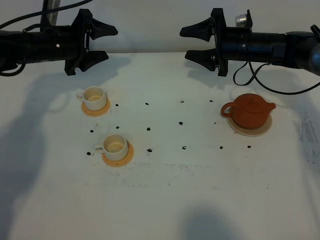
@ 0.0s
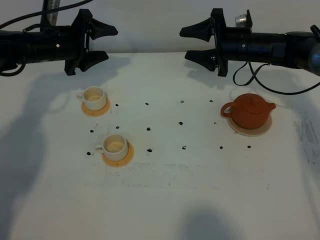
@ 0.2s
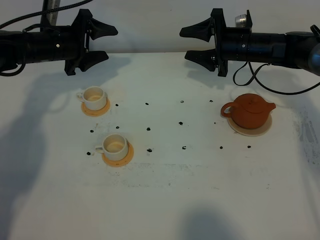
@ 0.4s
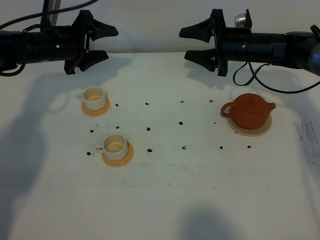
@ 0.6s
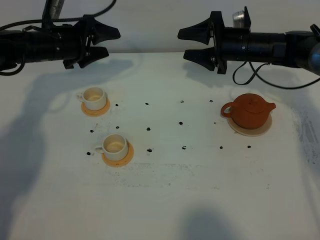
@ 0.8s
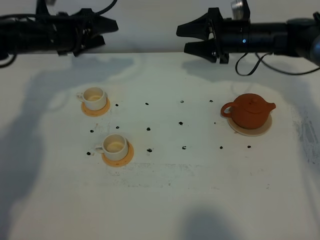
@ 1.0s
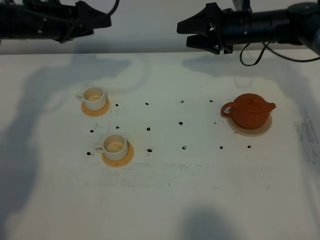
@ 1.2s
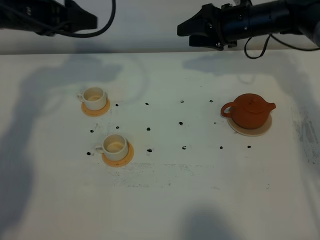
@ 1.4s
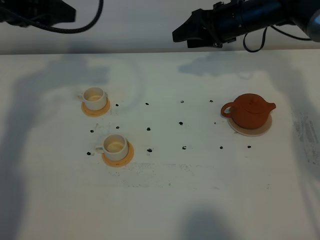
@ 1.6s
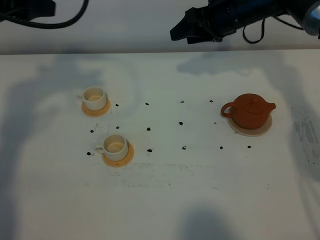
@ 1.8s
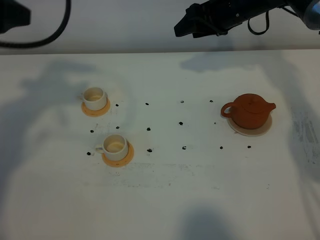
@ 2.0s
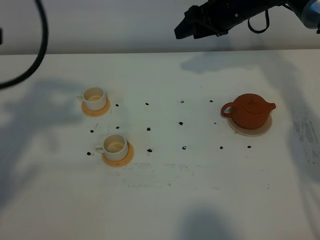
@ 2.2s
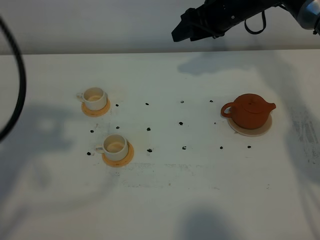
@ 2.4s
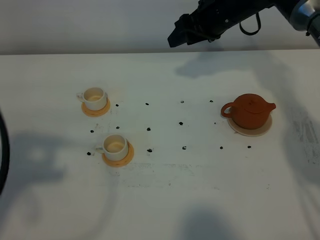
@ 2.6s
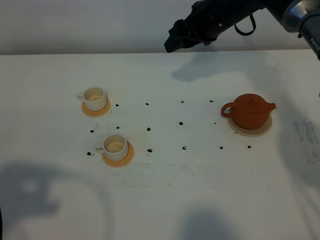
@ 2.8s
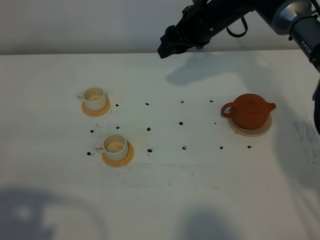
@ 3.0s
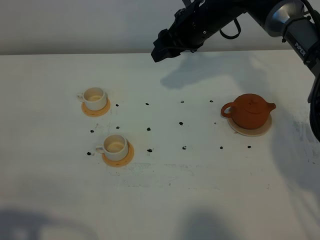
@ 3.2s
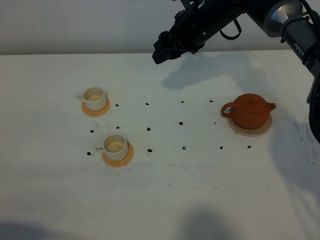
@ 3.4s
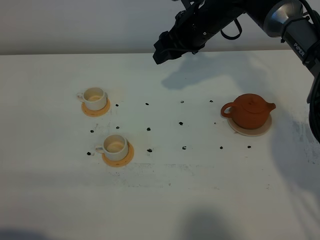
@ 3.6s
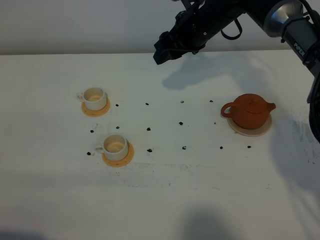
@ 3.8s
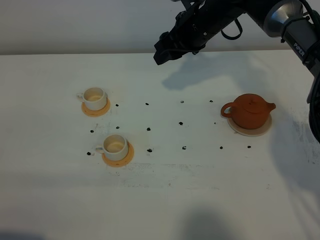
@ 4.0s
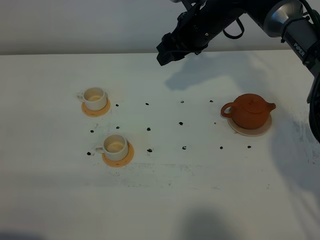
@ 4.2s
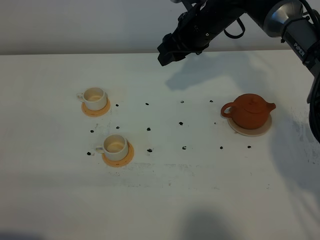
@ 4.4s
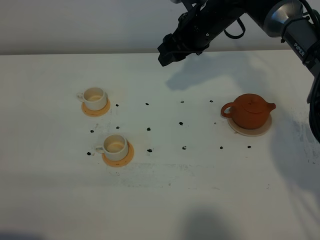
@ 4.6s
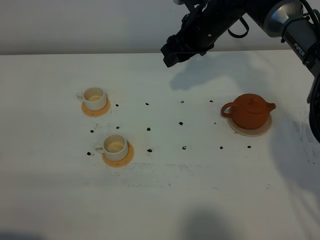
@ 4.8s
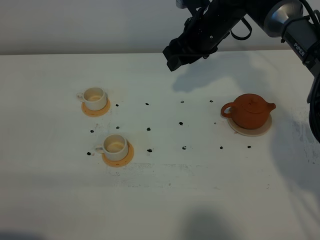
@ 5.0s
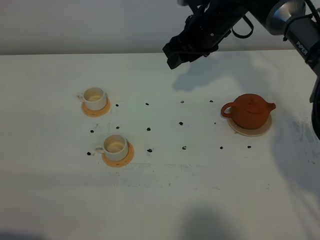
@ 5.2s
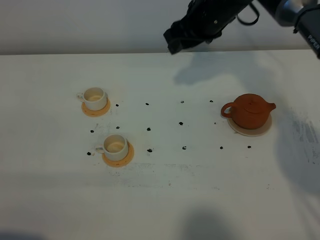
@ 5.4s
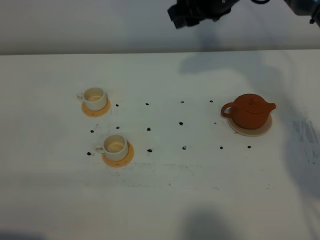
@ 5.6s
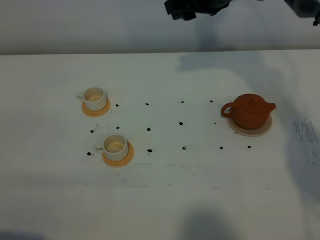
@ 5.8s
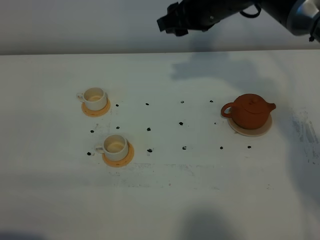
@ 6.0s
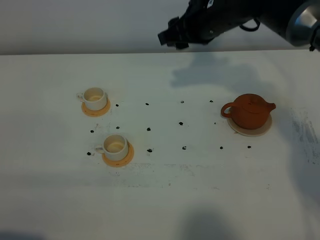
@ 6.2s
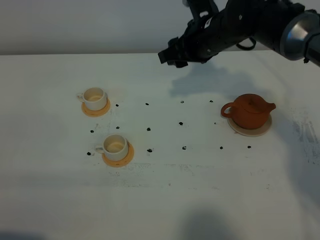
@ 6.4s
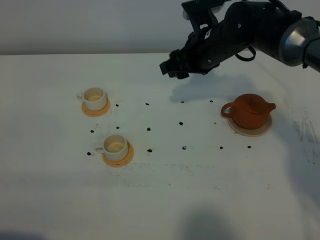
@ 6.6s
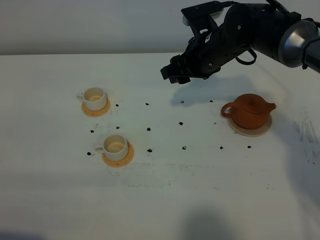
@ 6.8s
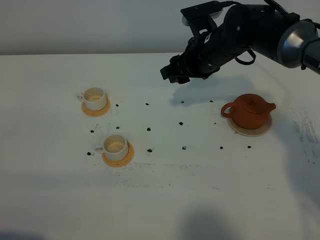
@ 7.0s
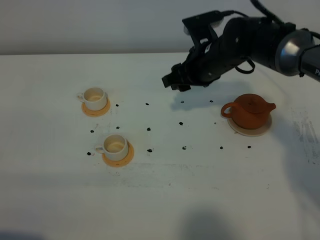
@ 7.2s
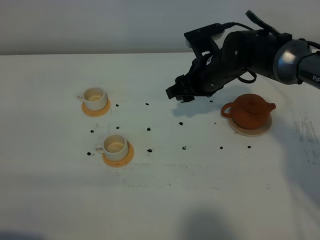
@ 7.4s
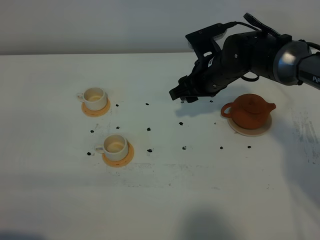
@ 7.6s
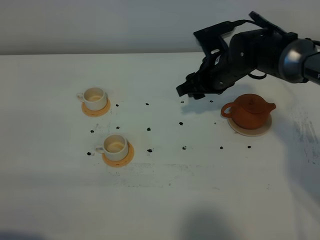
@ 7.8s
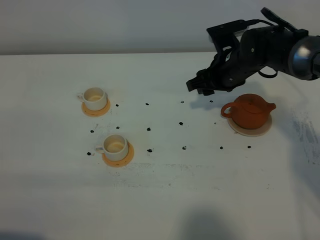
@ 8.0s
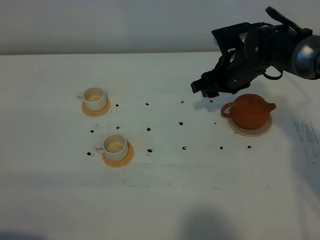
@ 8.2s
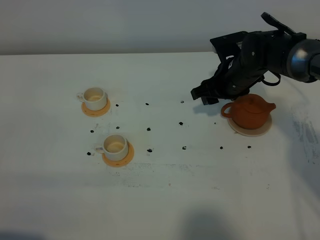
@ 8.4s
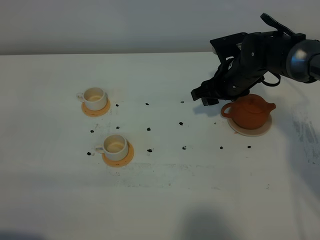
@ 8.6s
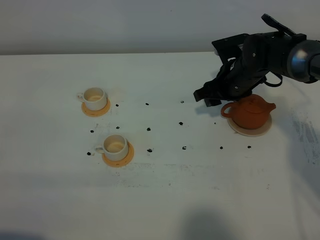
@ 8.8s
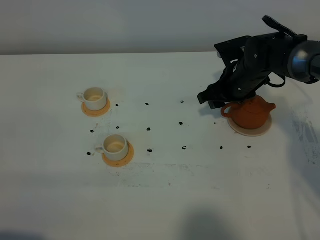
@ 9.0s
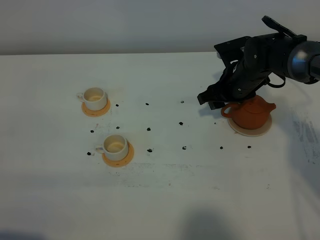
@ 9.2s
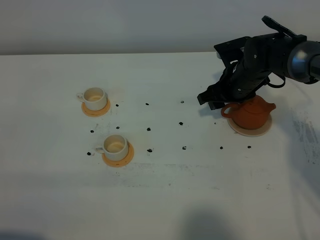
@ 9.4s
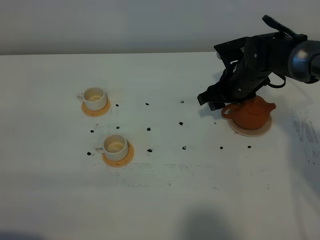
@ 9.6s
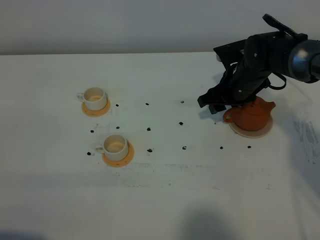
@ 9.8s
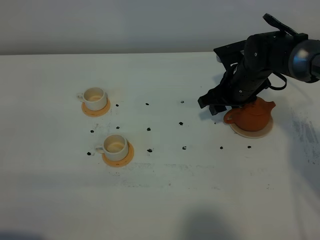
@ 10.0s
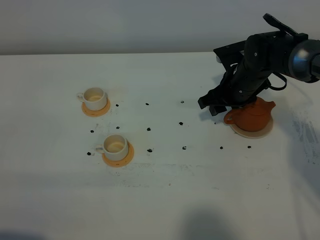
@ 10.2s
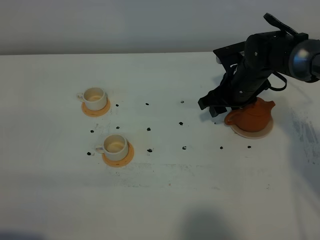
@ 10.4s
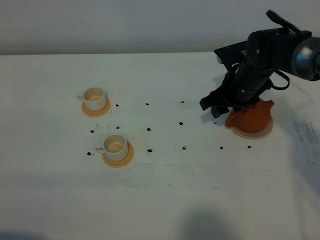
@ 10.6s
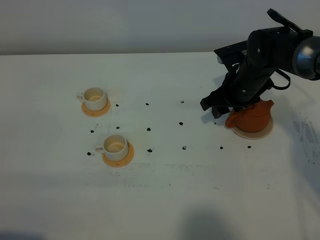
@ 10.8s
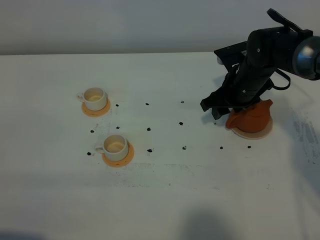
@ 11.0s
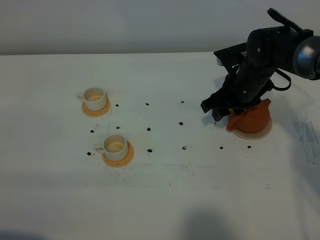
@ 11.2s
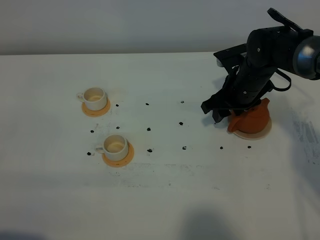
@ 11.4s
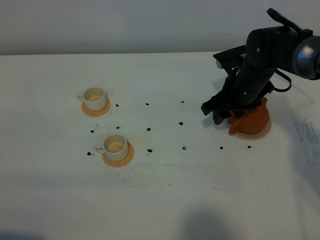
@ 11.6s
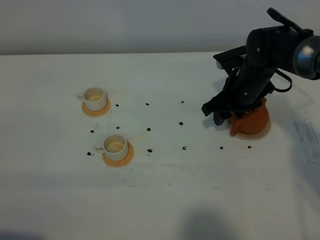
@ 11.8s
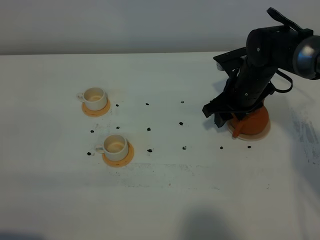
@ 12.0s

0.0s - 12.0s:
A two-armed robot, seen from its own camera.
Task of the whole recording: grasp the brown teapot and pour the tea into the two white teacups one by one, put the brown teapot back in its original place.
0.0s - 1.6s: The left gripper heads upward and backward, covering some 20 cm. Meanwhile the right gripper shifts approximately 5 cm upward.
1.6s - 3.0s: The left gripper shifts some 35 cm backward. The right gripper travels to the left by some 5 cm.
3.0s - 4.4s: The left gripper moves downward, some 5 cm.
4.4s - 6.0s: The right gripper moves roughly 5 cm.
6.0s - 7.6s: The right gripper moves downward, approximately 10 cm.
7.6s - 9.0s: The right gripper heads to the right, covering approximately 5 cm.
9.0s - 12.0s: The grippers stay close to where they were, moving slightly.

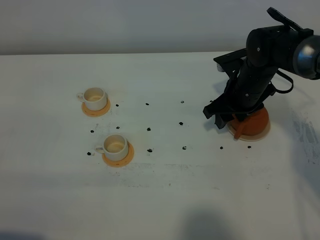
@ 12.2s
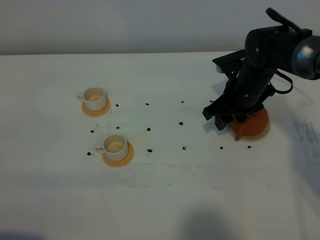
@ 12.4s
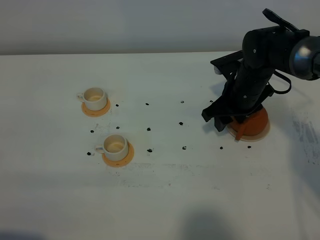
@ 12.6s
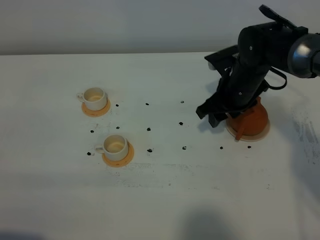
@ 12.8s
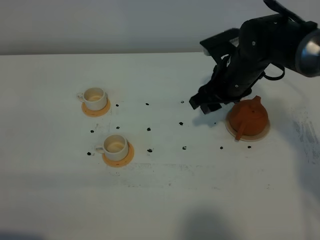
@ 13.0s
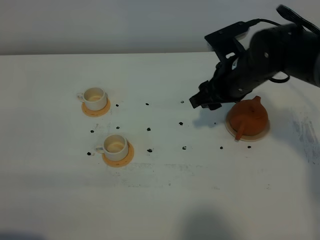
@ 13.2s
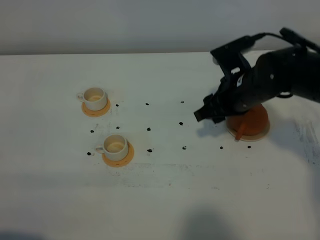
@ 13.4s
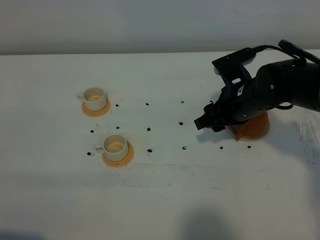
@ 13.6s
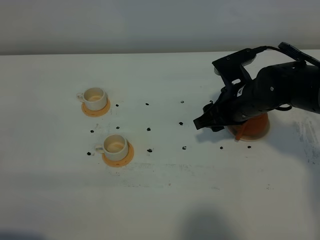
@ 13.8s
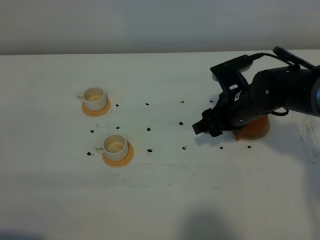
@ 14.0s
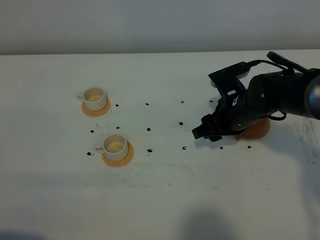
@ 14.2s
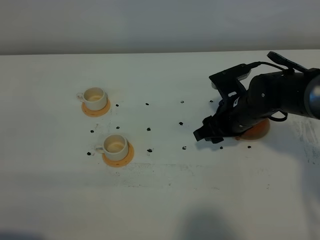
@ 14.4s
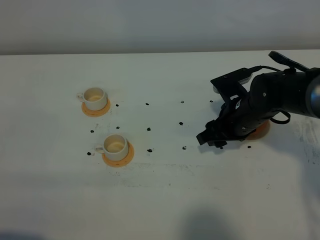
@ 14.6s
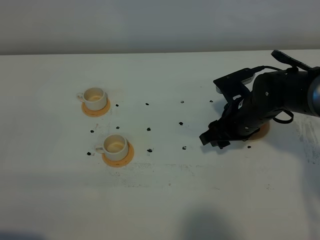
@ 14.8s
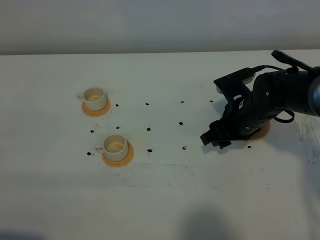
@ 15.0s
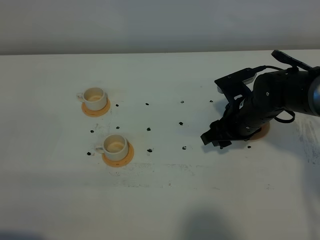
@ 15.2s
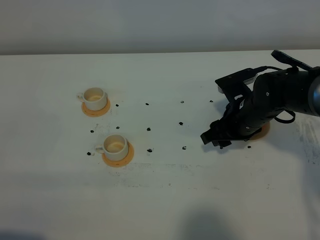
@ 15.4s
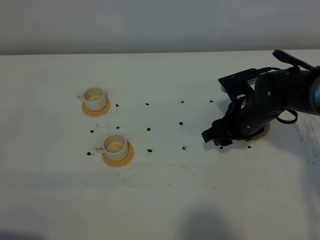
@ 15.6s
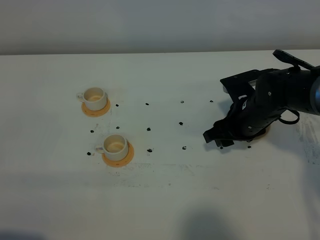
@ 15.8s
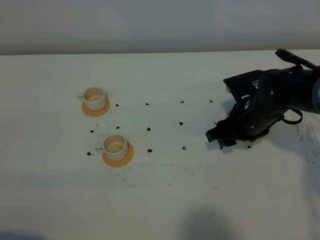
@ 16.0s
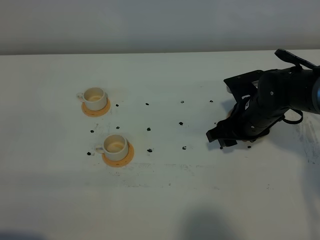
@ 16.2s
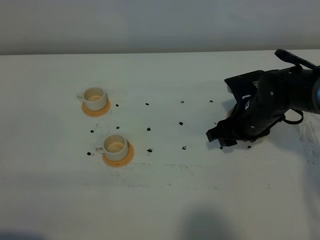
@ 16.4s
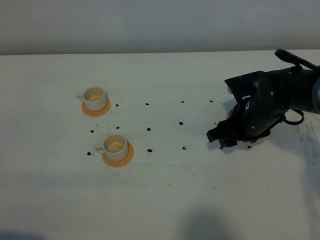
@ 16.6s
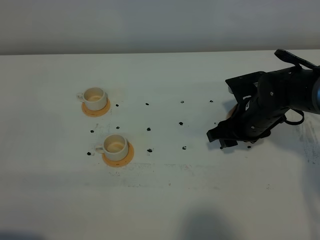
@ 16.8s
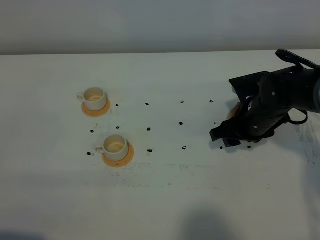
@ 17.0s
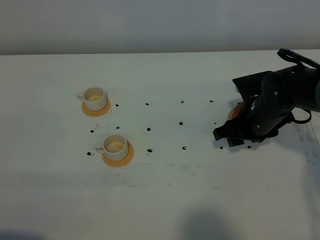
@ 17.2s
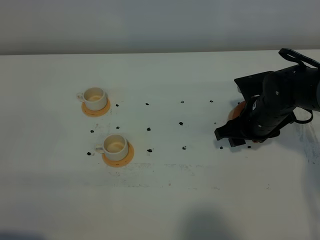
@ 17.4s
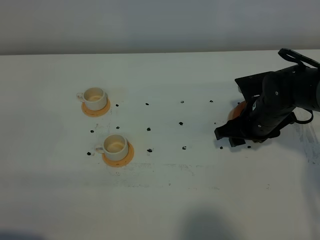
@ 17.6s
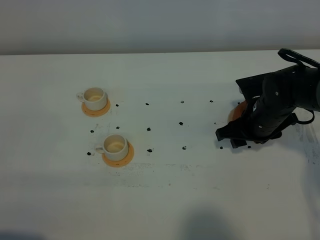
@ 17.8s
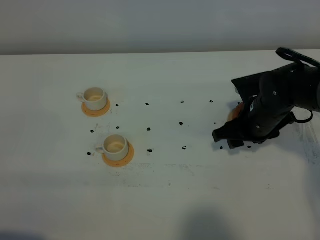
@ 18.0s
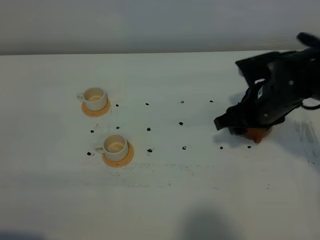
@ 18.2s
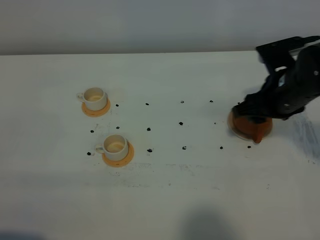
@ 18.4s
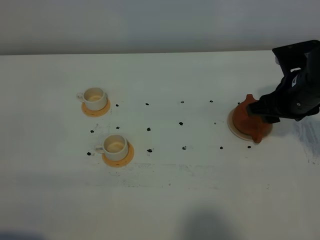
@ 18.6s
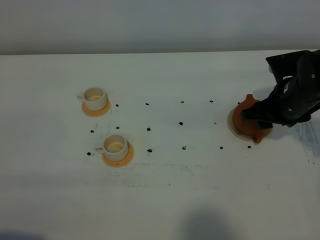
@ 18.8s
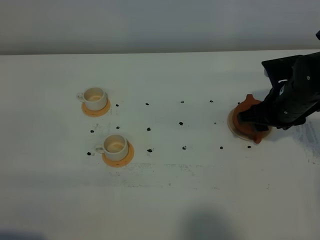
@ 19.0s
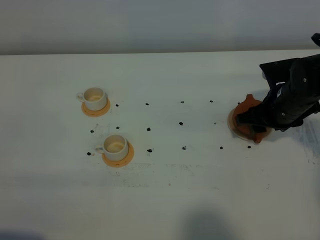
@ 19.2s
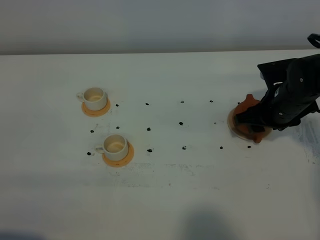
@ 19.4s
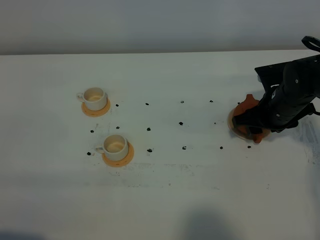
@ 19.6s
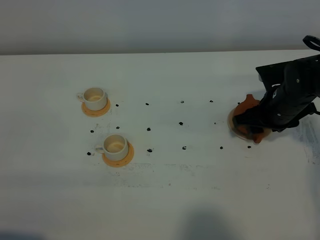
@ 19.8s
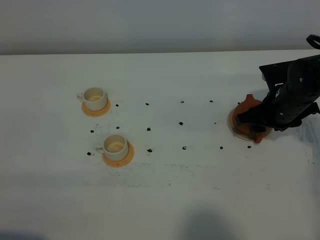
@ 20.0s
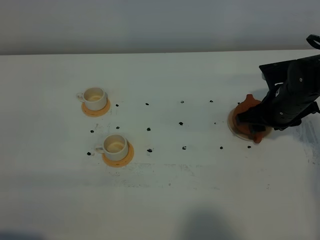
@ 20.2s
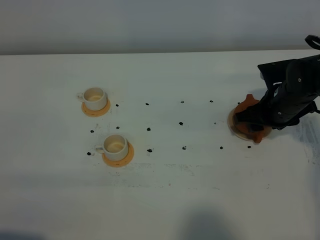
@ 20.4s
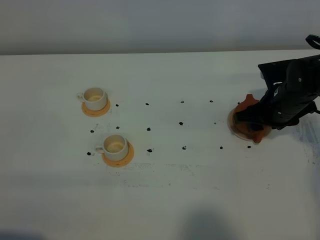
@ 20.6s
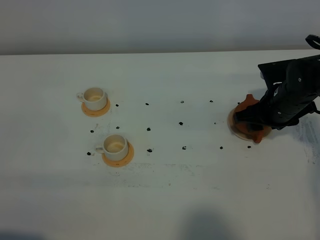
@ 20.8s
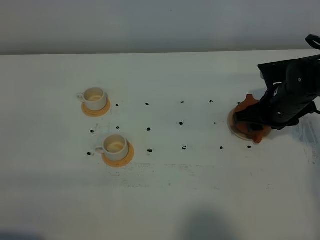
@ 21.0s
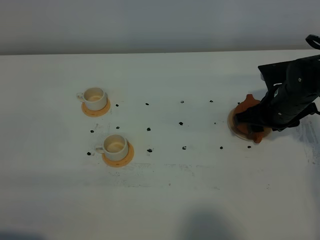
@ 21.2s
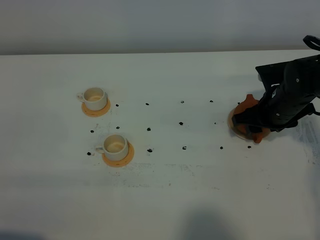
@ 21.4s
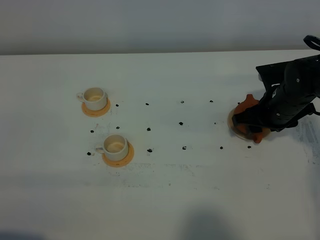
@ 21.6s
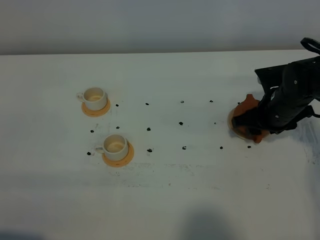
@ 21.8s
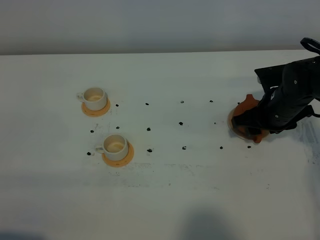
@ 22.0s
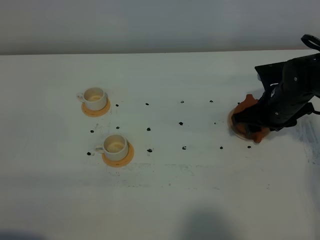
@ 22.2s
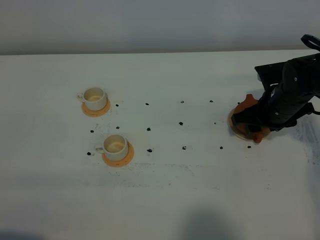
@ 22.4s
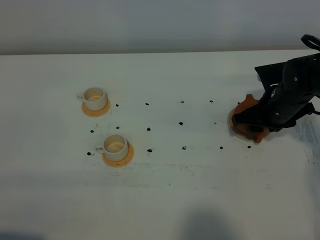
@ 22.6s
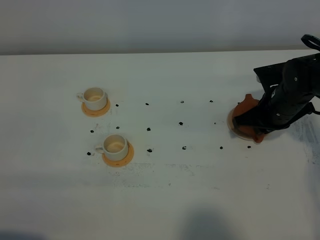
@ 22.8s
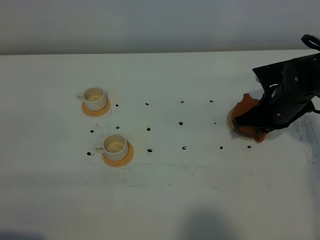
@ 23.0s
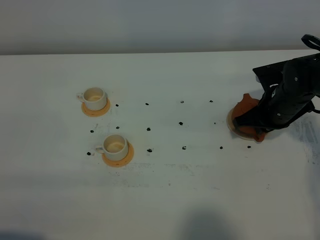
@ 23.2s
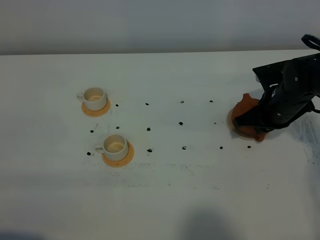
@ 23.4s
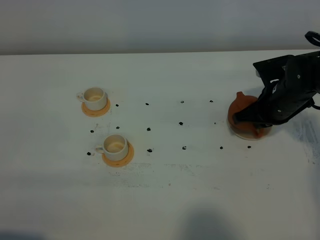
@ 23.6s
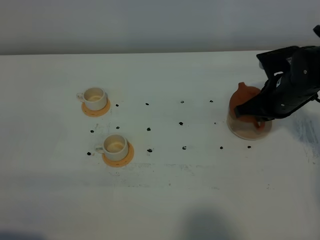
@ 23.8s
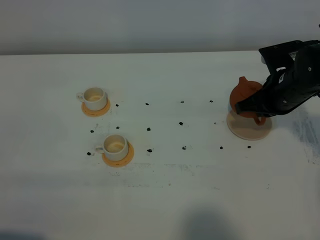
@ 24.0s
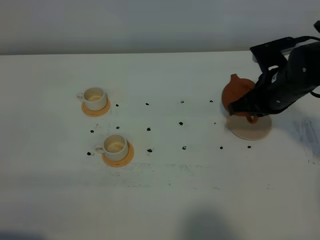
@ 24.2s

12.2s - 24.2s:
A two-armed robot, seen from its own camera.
Task of the whole recording: grasp the brown teapot and pour the tea into the two white teacups one by one, put the brown teapot back in its original place.
Step, 12.2s - 23.6s: Pick up the teapot with the right gripper.
12.2s - 13.8s: The right gripper is displaced backward by approximately 5 cm.
13.8s - 16.6s: The grippers move only a little.
16.6s - 18.2s: The right gripper travels upward by about 5 cm.
18.2s - 19.8s: The right gripper is displaced downward by about 5 cm.
19.8s - 22.6s: Both grippers stay about where they are.
22.6s - 24.2s: The right gripper shifts approximately 5 cm upward, and closes up.
